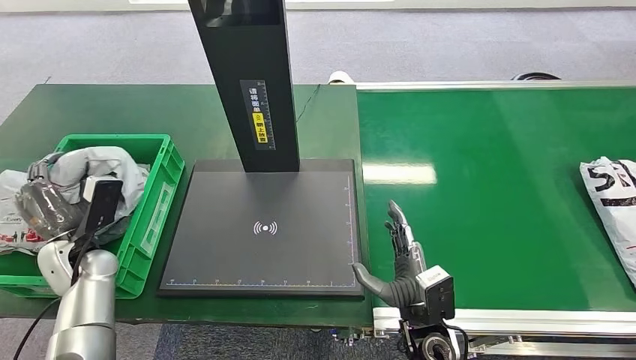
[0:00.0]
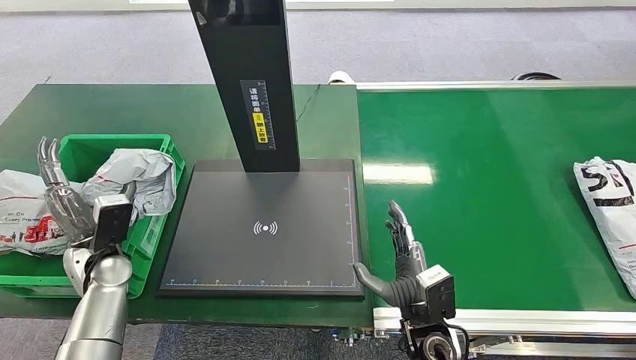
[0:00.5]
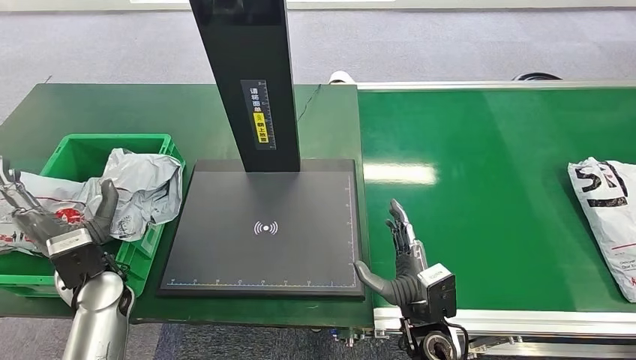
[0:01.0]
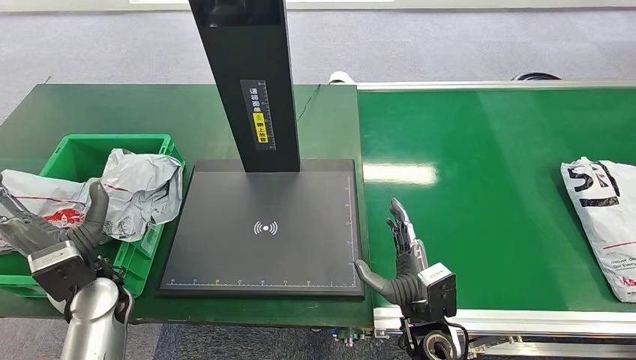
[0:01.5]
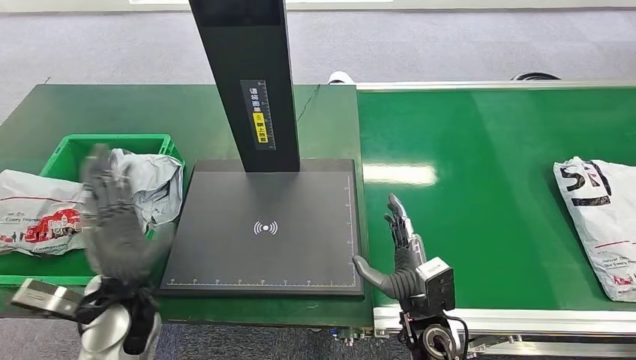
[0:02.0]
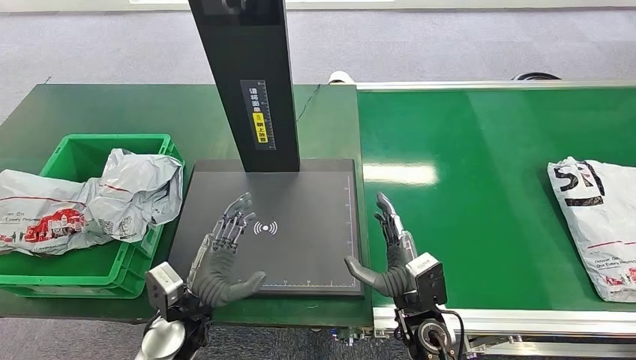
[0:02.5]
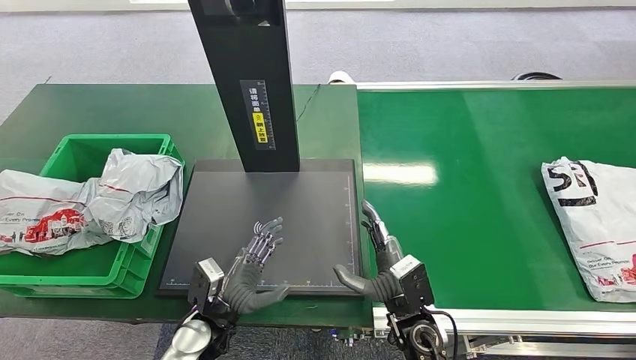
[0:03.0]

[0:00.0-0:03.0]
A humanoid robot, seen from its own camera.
Step, 0:00.0 to 0:02.5: Place the package into the parcel locker.
0:00.0 to 0:01.5: The left hand travels to the right and backward by some 10 cm.
0:01.5 to 0:03.0: The left hand travels to the right and downward by some 20 cm.
